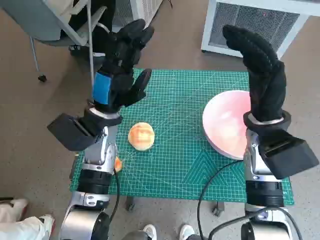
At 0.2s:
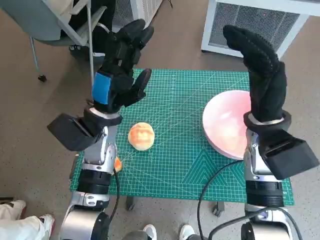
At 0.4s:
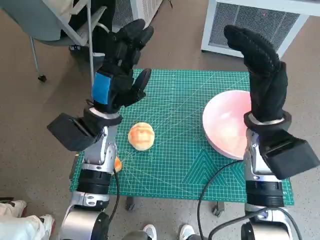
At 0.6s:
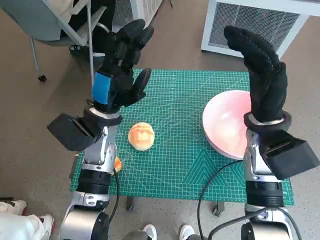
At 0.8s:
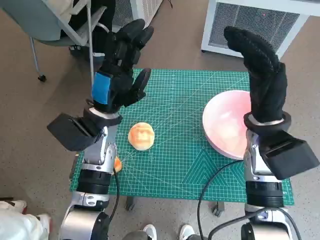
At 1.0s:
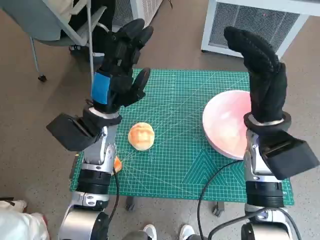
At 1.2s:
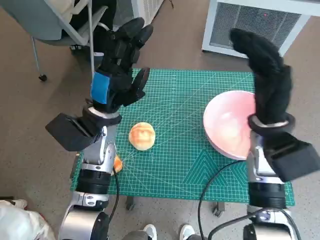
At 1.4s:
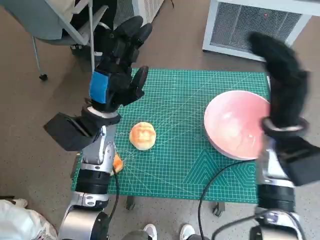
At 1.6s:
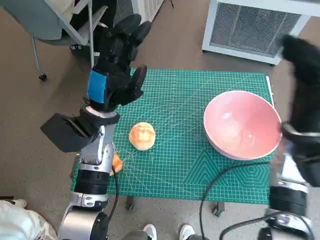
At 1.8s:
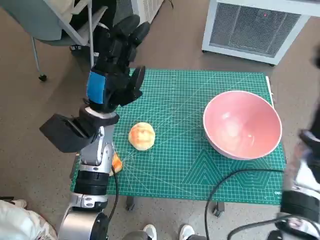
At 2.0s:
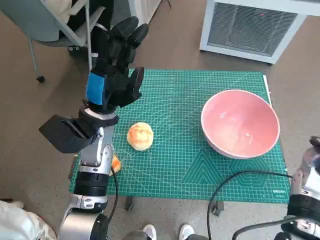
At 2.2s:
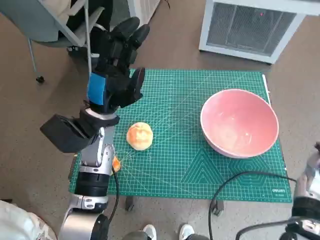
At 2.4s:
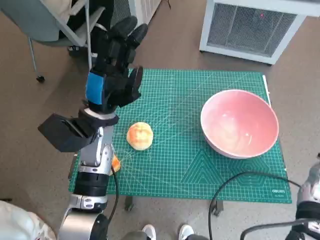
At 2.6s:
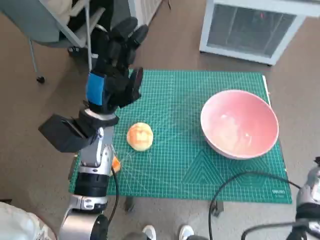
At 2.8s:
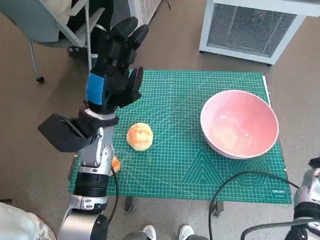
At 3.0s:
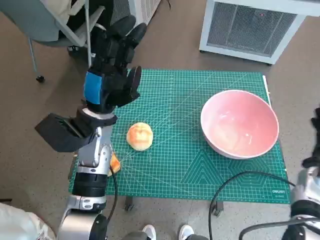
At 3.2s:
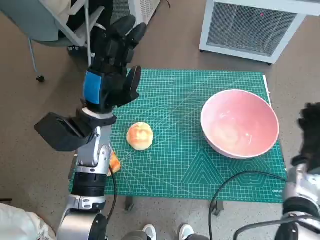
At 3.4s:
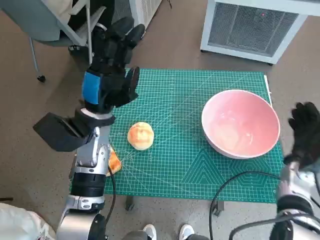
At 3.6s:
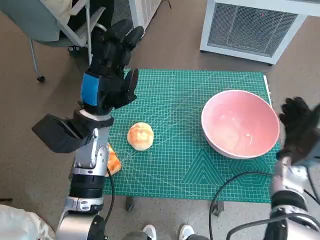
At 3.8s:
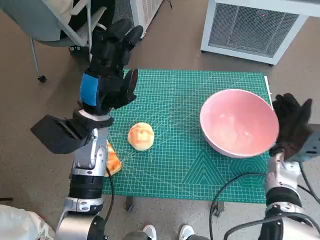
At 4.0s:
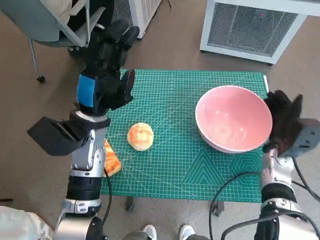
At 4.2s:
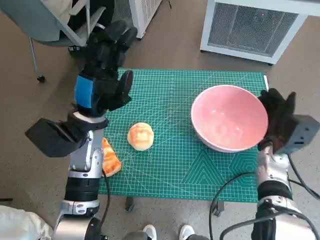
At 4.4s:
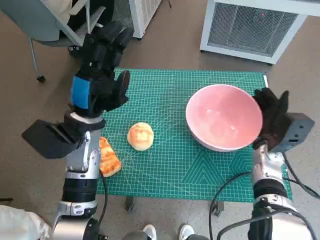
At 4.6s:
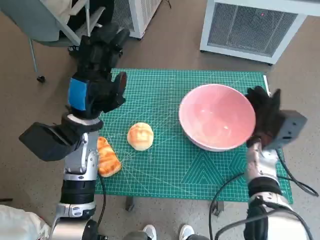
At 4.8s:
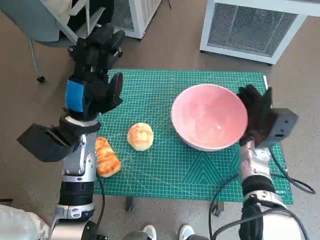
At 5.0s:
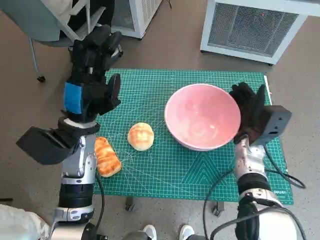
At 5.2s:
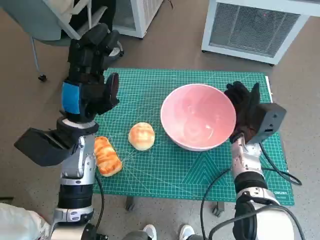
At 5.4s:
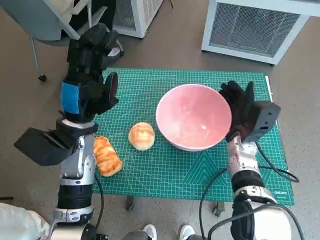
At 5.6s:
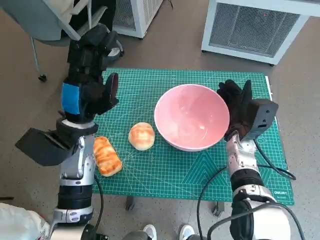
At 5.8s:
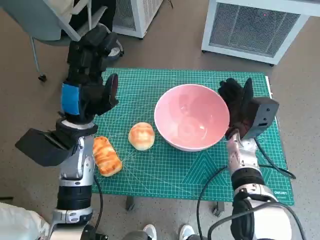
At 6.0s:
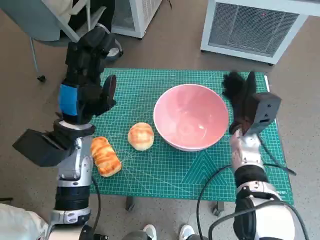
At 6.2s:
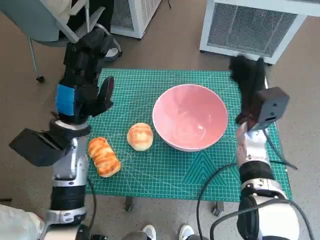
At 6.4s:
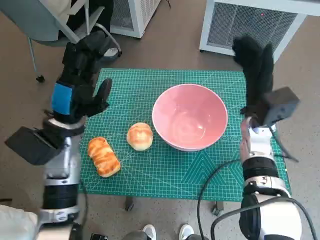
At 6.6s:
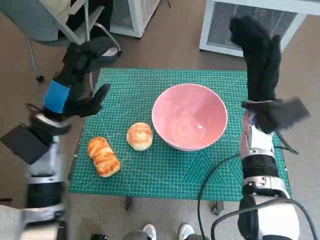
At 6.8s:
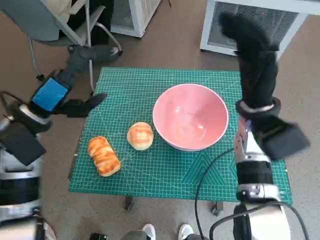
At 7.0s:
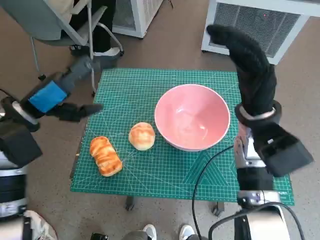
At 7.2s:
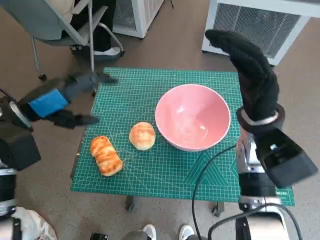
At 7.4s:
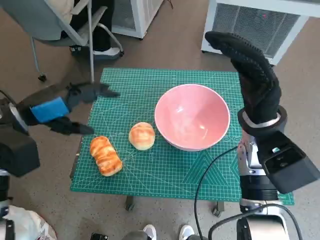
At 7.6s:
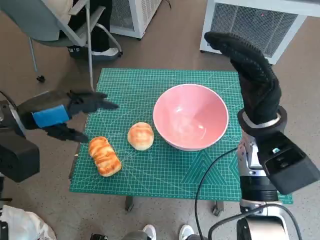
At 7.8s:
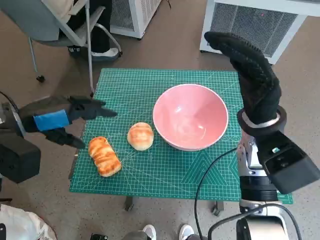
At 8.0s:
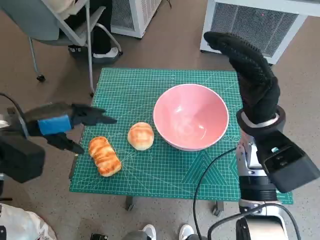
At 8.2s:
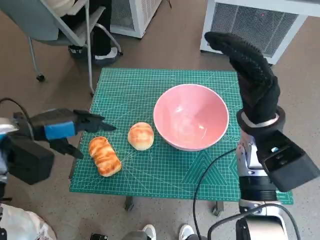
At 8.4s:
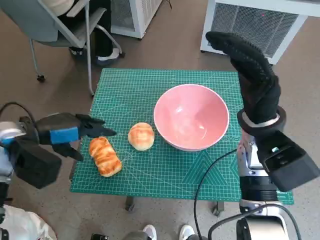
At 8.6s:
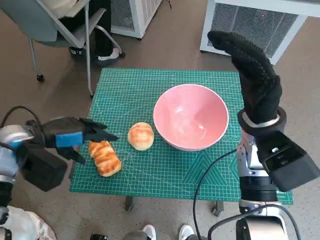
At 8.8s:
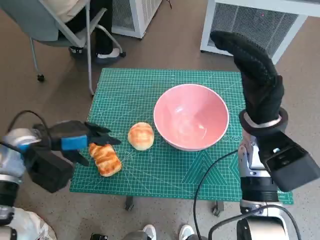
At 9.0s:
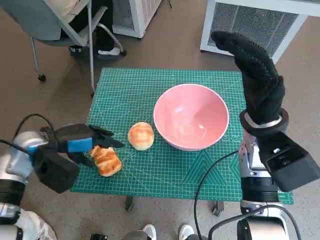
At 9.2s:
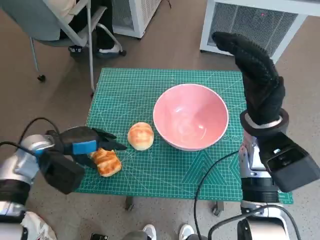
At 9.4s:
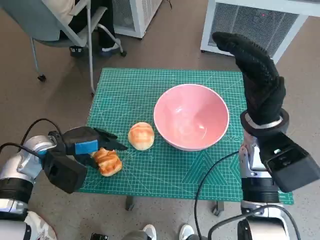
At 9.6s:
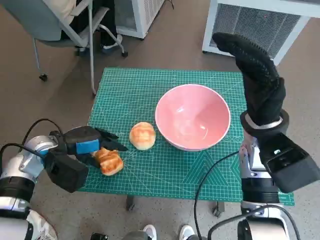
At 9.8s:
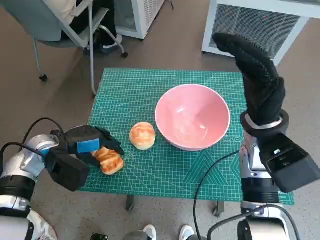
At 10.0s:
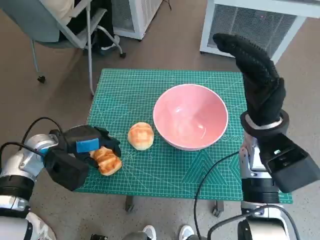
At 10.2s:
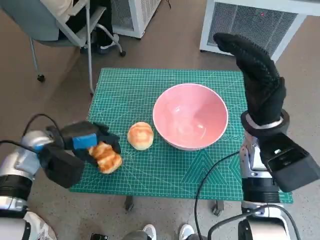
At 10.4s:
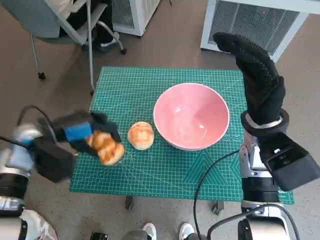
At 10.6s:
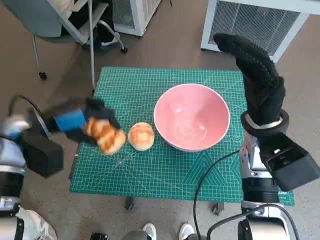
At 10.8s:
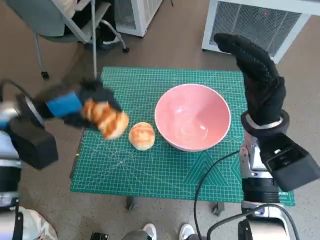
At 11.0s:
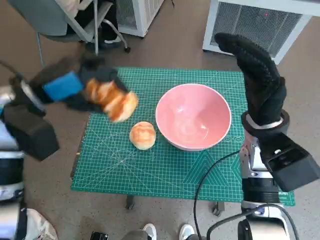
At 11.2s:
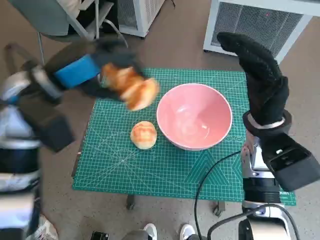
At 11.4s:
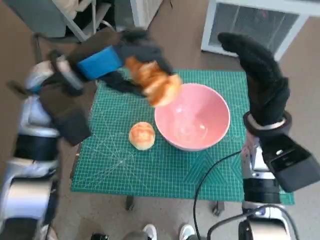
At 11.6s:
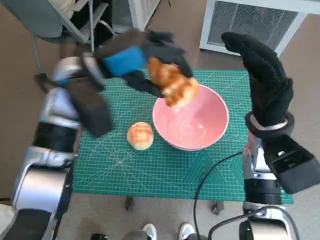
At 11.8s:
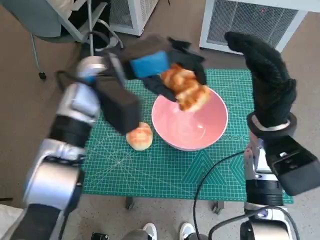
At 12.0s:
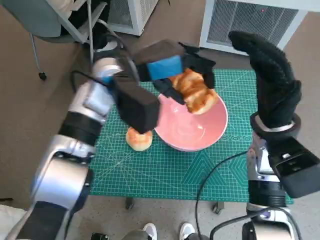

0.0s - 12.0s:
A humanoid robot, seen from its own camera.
Task of the whole recording: Push the bowl to the center of the table and put the bread into the bowl.
Step, 0.0s - 6.2s: Move the pink bowl to the center of table with right hand.
Step, 6.4s - 10.2s: Grasp the long bread with left hand.
1.6s - 3.0s: The right hand goes roughly 15 cm downward and to the right.
3.0s - 4.4s: The right hand travels to the left by about 10 cm.
4.4s - 6.0s: The right hand goes approximately 5 cm to the left.
6.0s - 7.6s: The left hand goes about 10 cm to the left and upward. Meanwhile the right hand goes some 10 cm upward.
7.6s - 9.0s: The left hand moves downward, roughly 10 cm.
9.0s - 10.4s: There are only small adjustments of the hands.
10.4s - 12.0s: The left hand heads to the right and upward, covering some 20 cm.

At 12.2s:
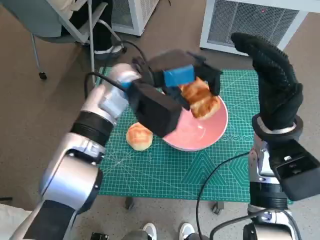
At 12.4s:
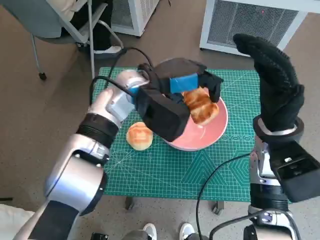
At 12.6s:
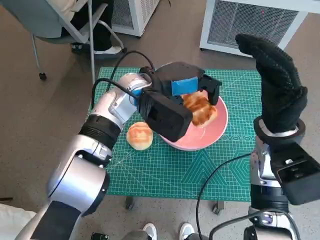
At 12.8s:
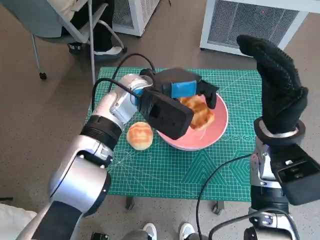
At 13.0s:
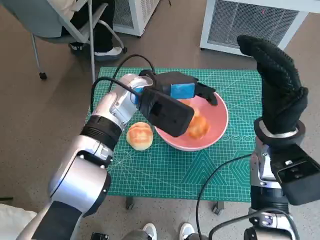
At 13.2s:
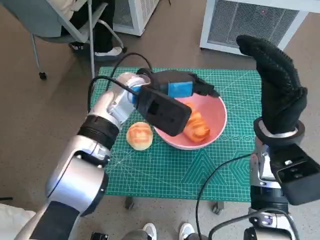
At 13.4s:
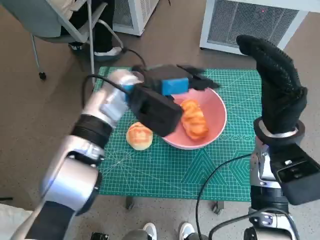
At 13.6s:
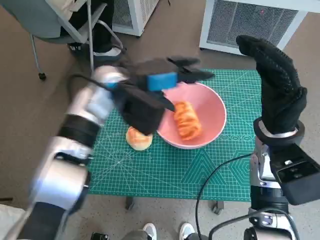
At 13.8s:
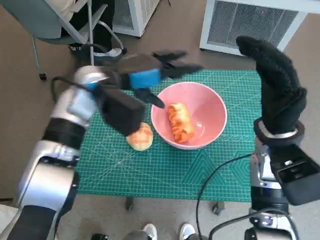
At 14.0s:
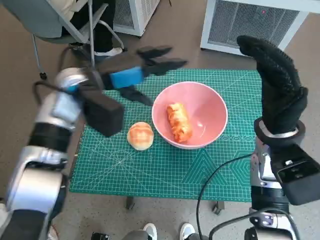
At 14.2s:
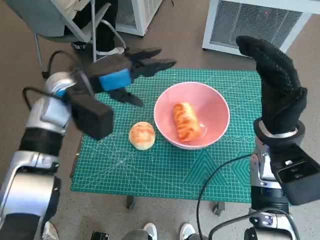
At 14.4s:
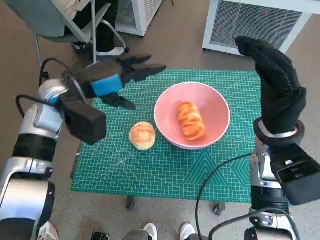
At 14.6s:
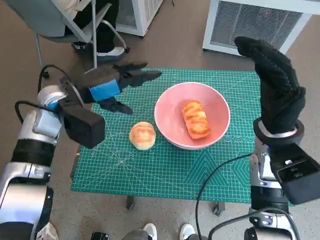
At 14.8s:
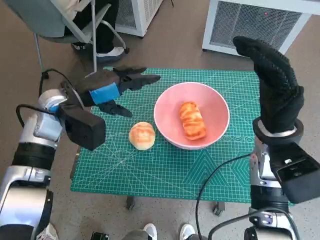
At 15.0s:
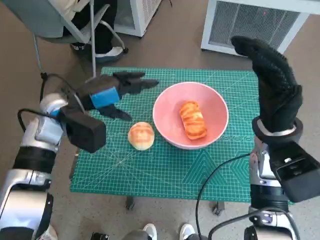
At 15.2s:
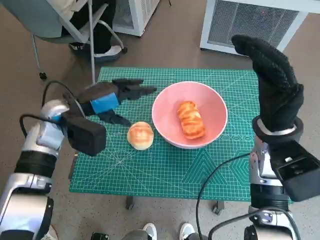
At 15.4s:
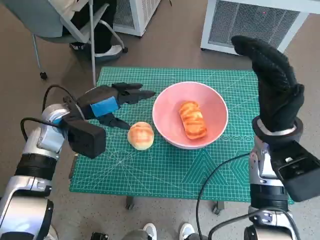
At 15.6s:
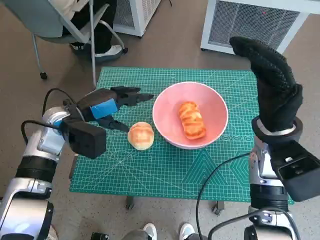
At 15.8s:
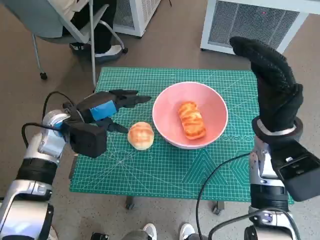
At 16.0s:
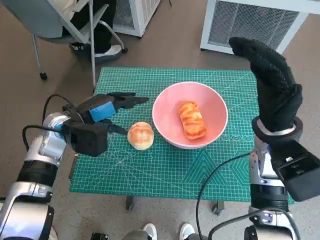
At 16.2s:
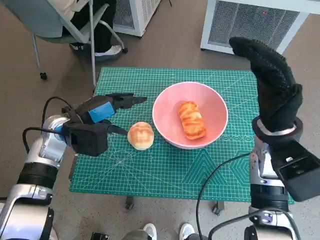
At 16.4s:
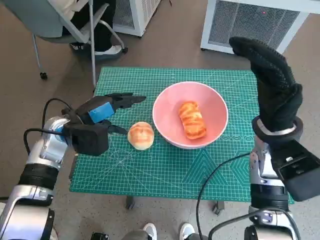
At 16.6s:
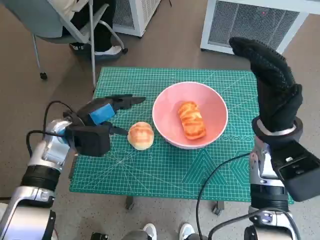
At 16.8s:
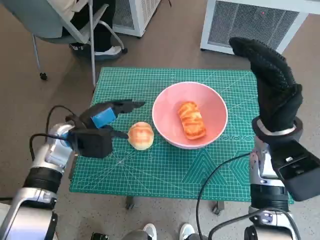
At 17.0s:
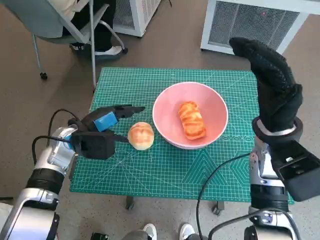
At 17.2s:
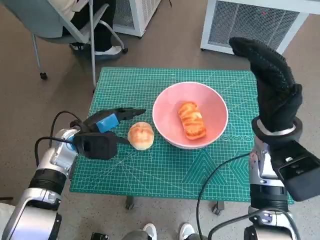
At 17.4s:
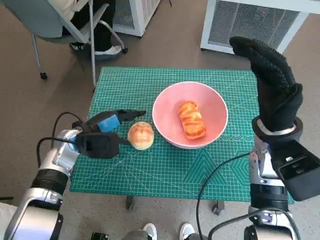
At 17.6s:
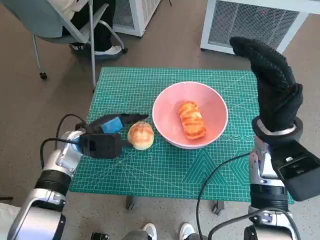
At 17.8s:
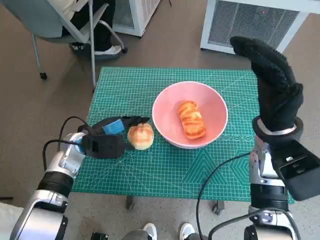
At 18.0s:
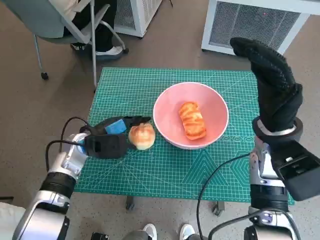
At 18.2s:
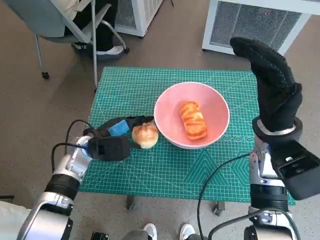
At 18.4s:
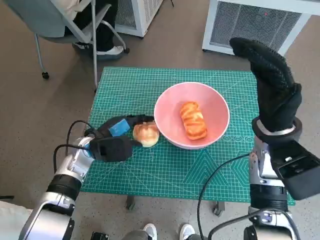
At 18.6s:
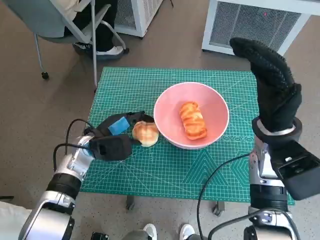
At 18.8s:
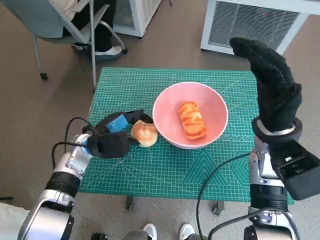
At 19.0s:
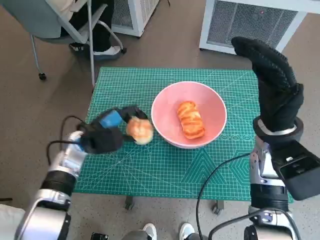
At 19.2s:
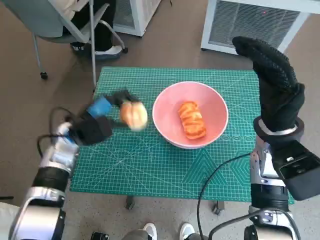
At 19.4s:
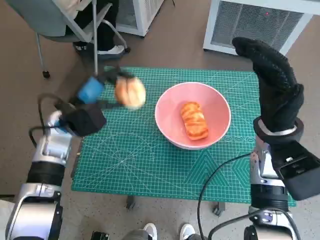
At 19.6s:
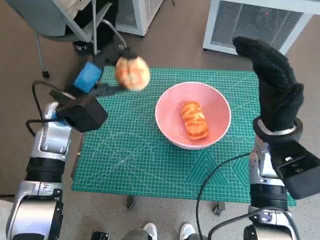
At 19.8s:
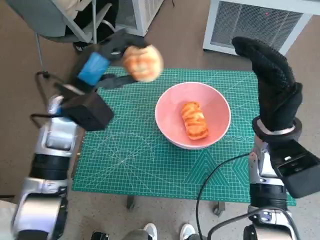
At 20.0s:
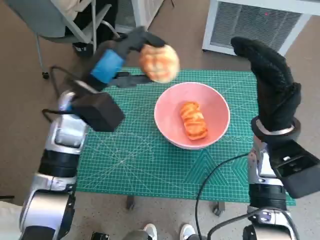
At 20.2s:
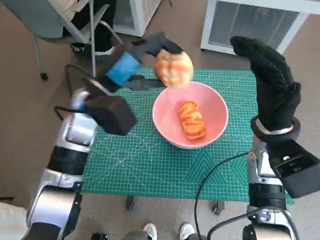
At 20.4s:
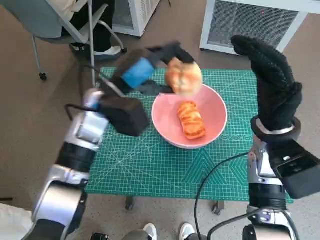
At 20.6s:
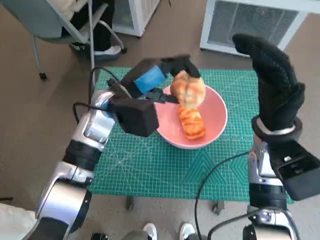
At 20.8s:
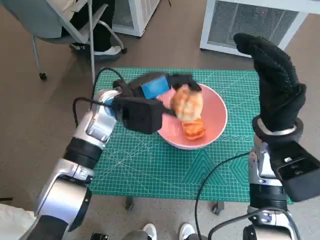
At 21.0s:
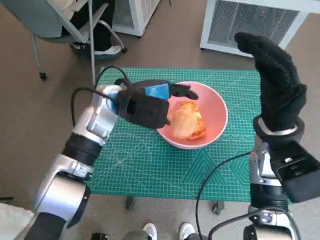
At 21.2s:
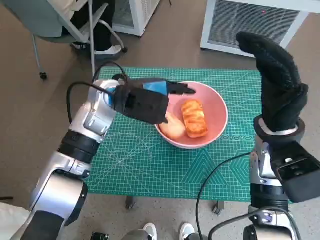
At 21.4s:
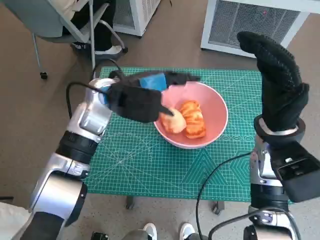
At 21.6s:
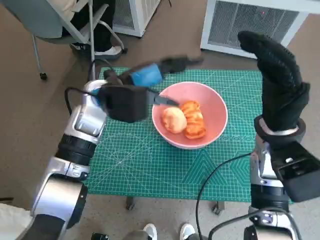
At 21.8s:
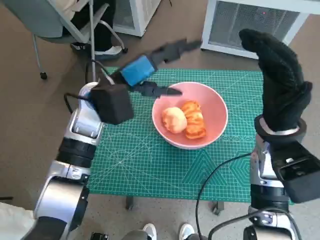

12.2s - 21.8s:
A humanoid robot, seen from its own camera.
Task of the whole recording: Push the bowl to the center of the table and put the bread into the bowl.
Step, 13.8s - 18.6s: Grasp the round bread with left hand.
13.8s - 15.4s: The left hand heads to the left and downward, covering about 10 cm.
15.4s - 17.0s: The left hand moves downward, about 5 cm.
17.0s - 18.6s: There are only small adjustments of the hands.
18.6s - 20.2s: The left hand travels upward by some 15 cm.

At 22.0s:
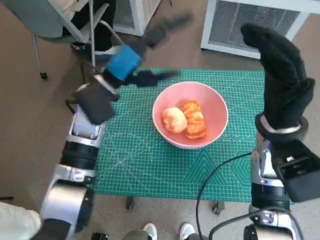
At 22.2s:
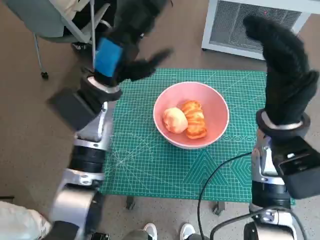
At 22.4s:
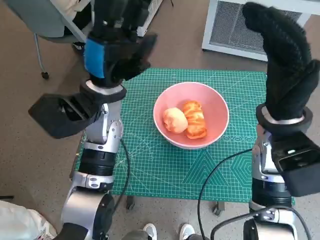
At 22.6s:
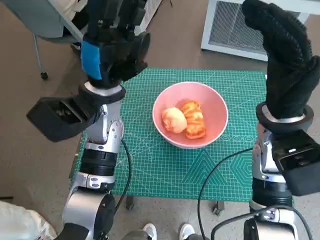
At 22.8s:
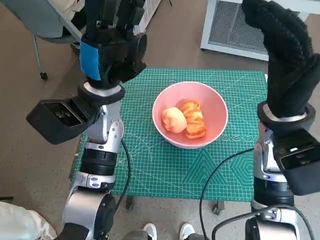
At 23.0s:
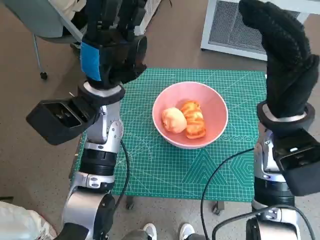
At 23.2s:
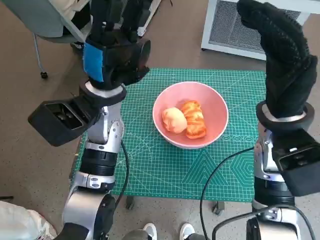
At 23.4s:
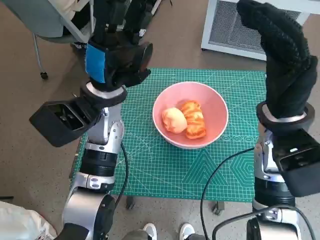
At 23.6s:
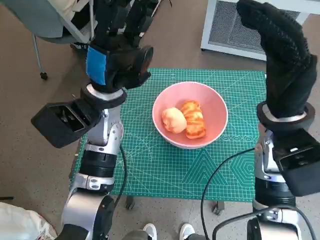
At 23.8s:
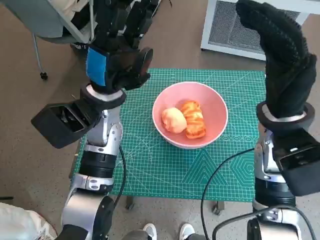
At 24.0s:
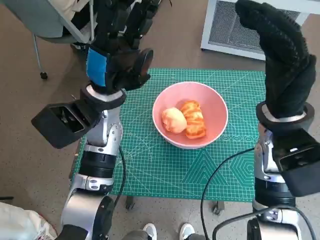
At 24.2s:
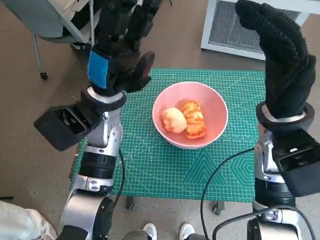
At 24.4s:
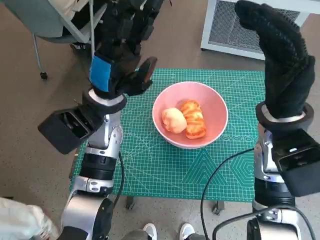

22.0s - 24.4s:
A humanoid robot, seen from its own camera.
Task of the whole recording: Push the bowl to the center of the table and put the bread into the bowl.
23.2s - 24.4s: The hands make only small movements.
